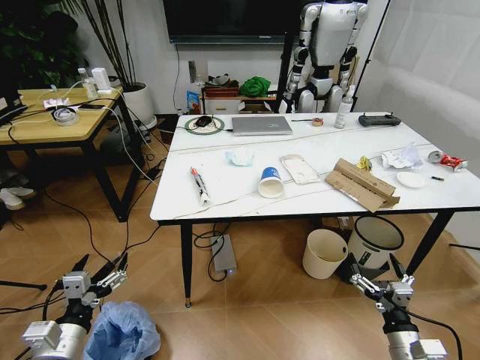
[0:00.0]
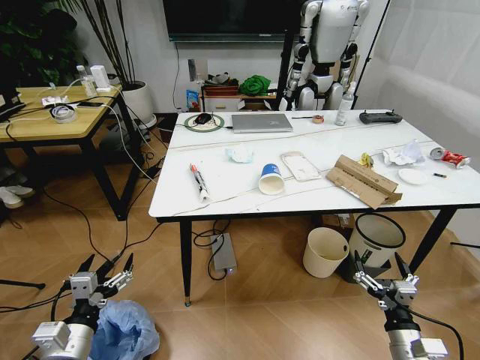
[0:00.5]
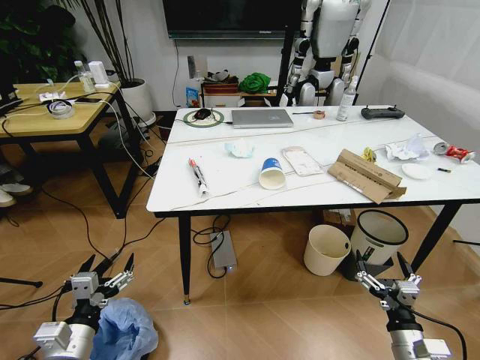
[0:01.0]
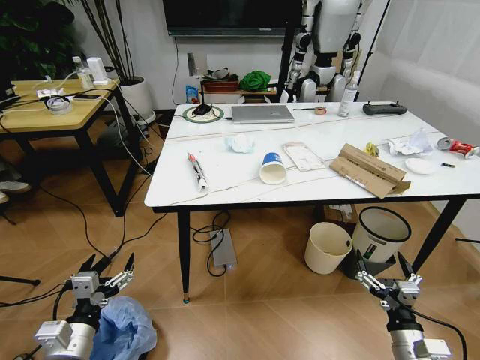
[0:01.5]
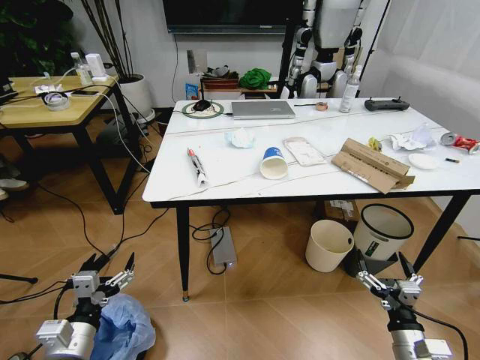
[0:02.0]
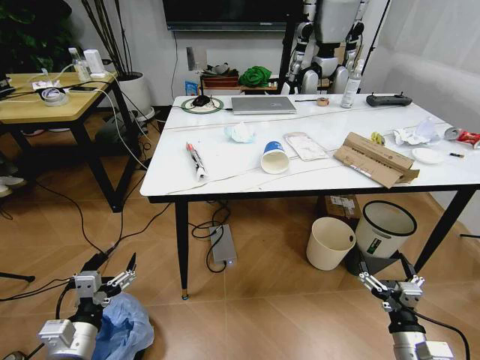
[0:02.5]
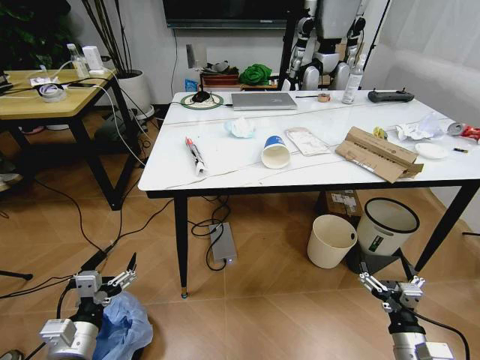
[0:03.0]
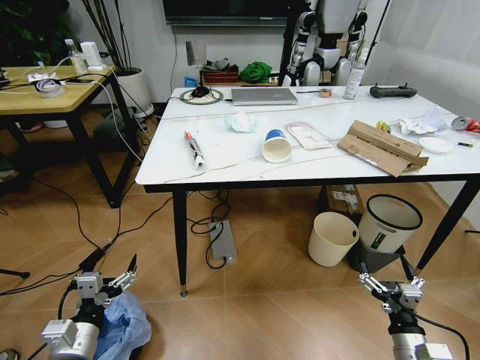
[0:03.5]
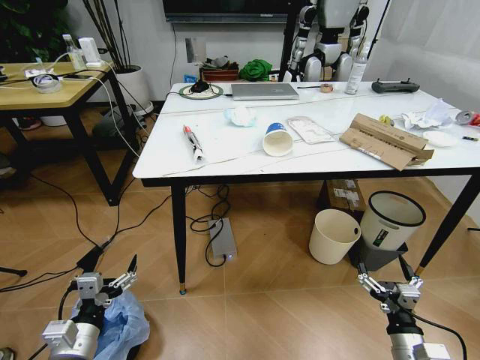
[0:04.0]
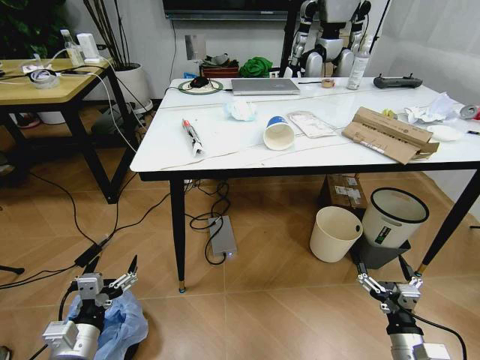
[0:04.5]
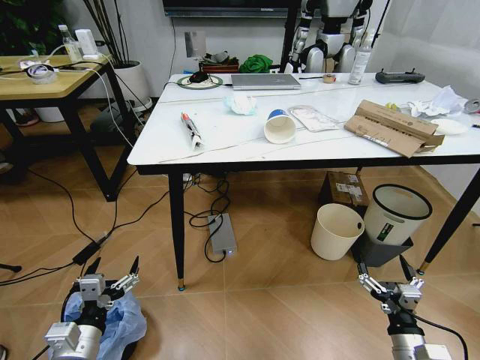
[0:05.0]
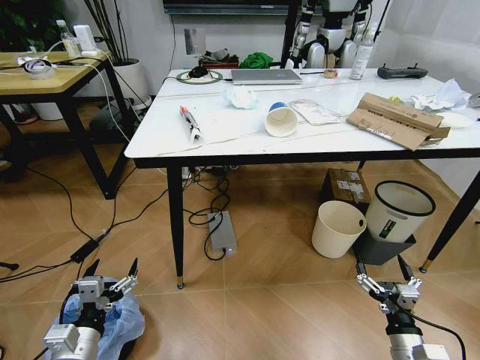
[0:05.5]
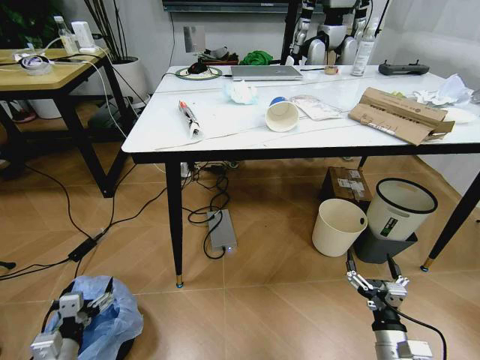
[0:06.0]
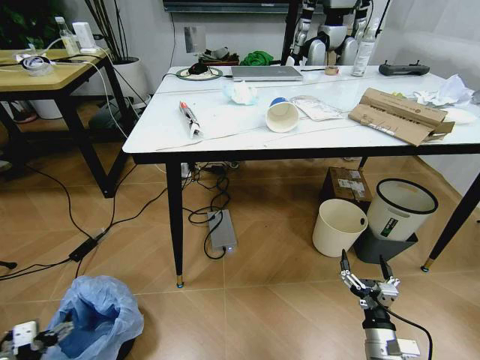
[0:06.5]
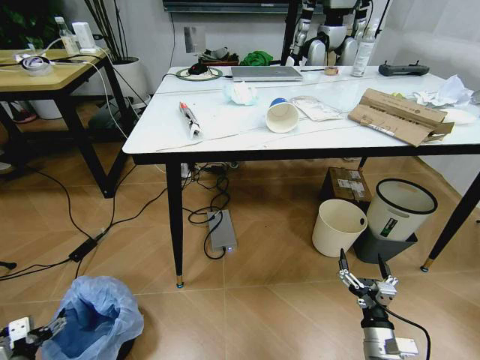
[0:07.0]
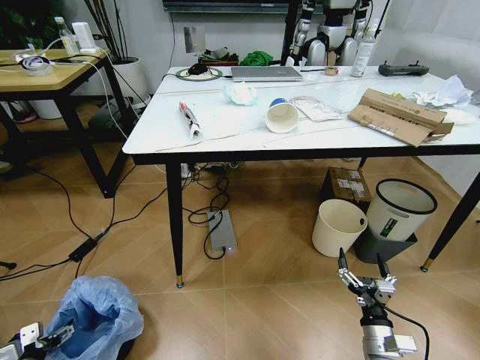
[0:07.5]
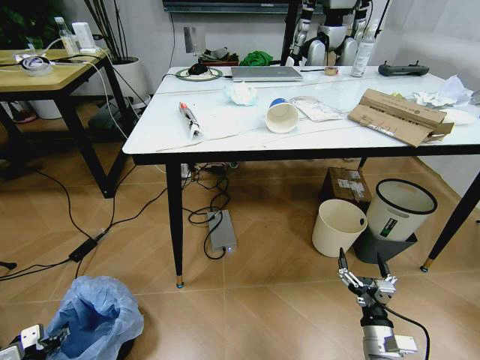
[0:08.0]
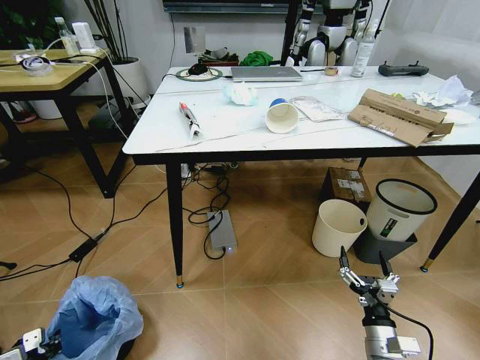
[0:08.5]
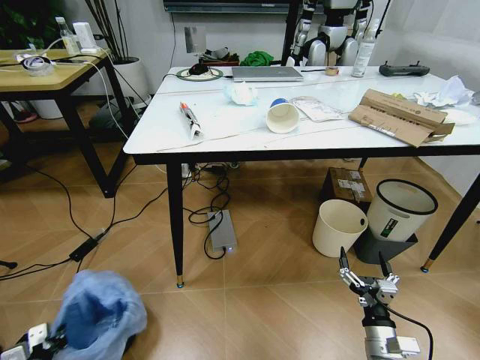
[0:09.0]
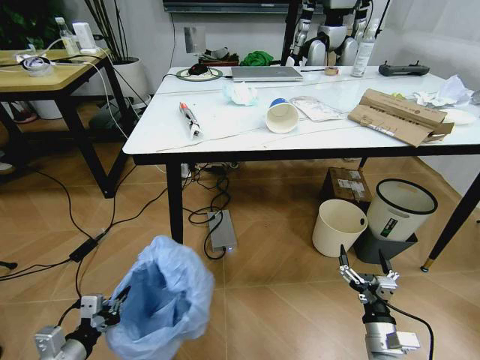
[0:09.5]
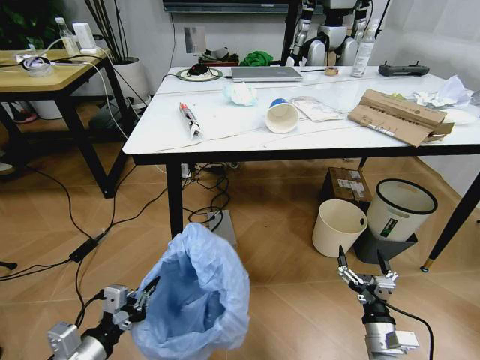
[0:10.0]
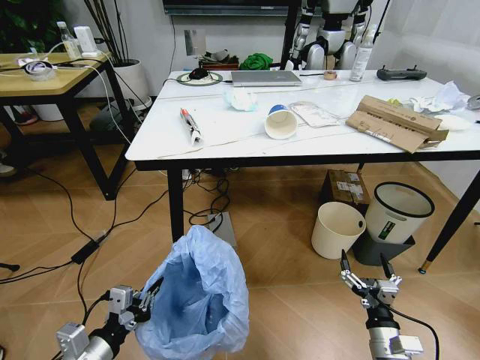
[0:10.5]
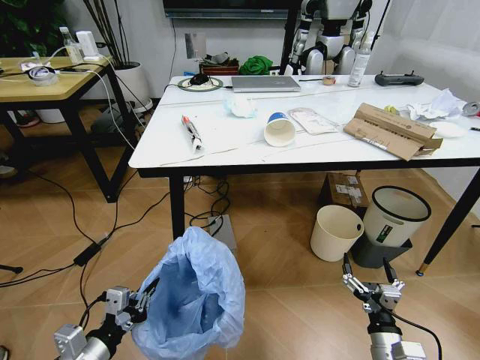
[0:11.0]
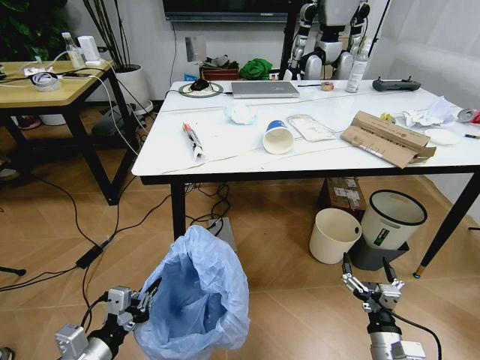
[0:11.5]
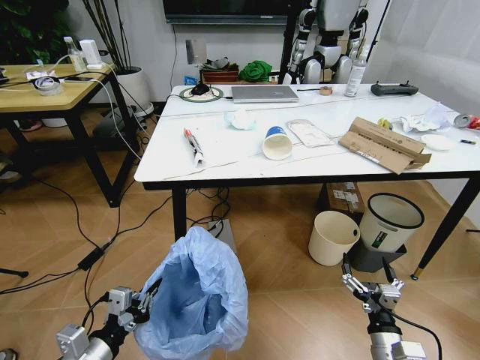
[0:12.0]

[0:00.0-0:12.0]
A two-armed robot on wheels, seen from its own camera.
Task of the whole recording: Pick up the trash bin and place the trash from the table into it.
0:04.0 to 0:06.0: The left gripper heads to the left and downward, covering approximately 5 cm.
0:06.0 to 0:08.0: The left gripper goes about 15 cm to the left and downward.
0:08.0 to 0:10.0: The left gripper is displaced to the right and upward by some 25 cm, and closes its fingers.

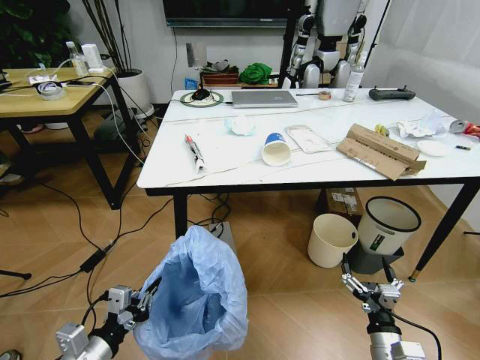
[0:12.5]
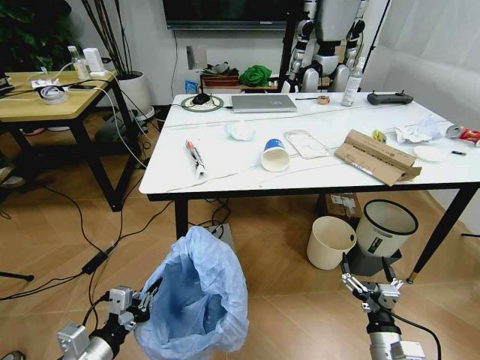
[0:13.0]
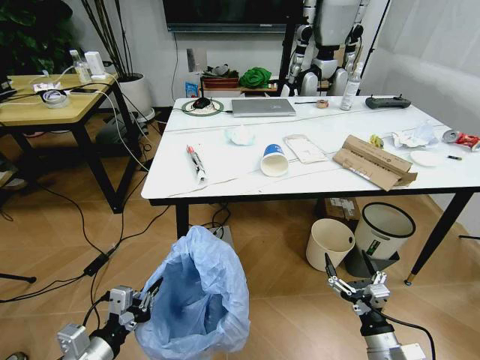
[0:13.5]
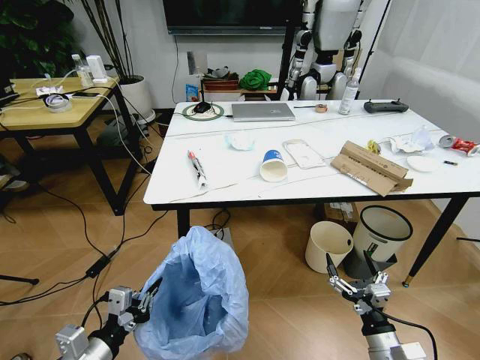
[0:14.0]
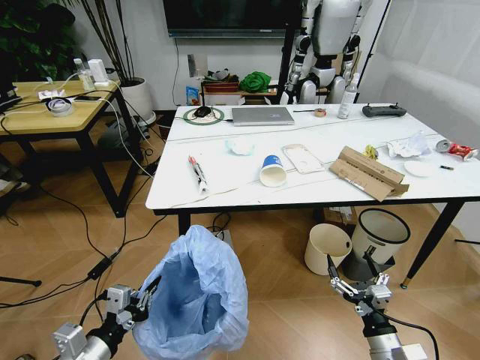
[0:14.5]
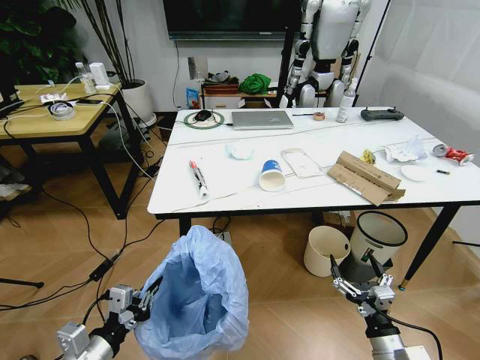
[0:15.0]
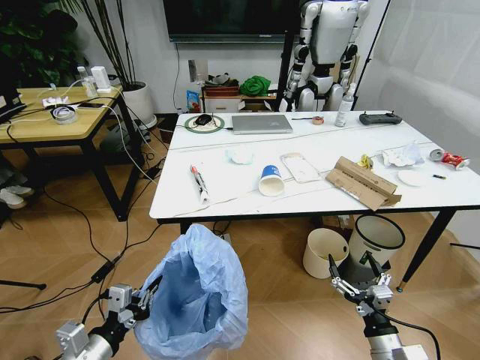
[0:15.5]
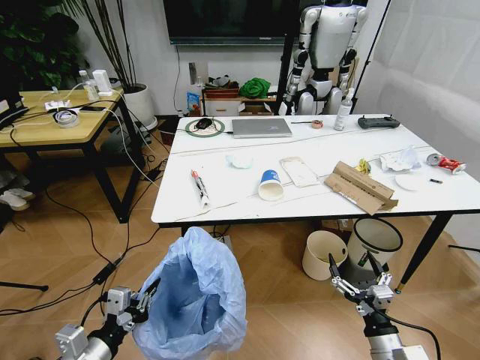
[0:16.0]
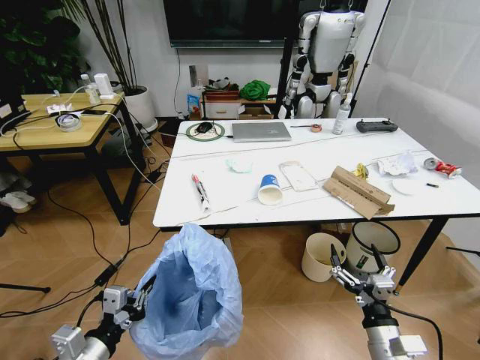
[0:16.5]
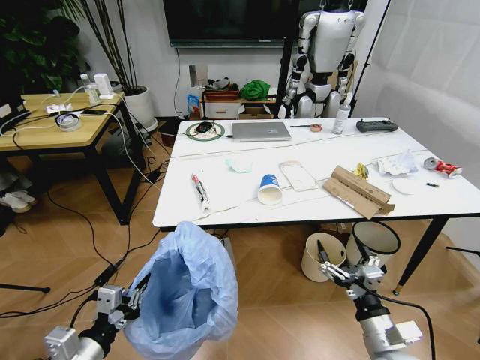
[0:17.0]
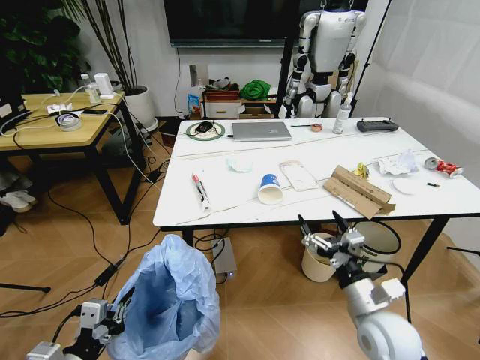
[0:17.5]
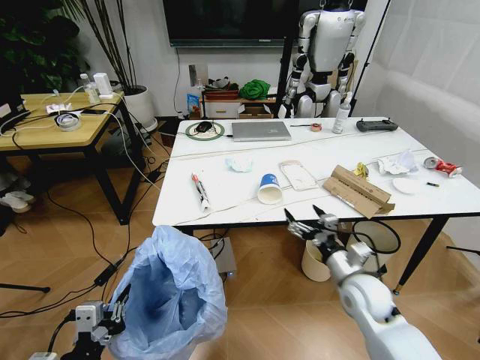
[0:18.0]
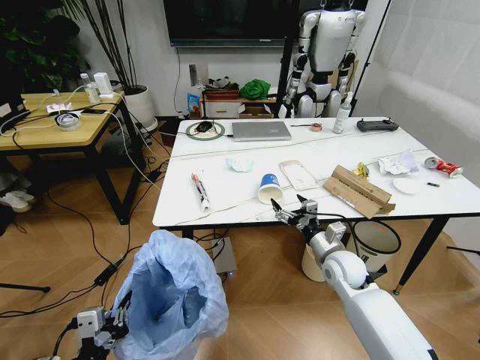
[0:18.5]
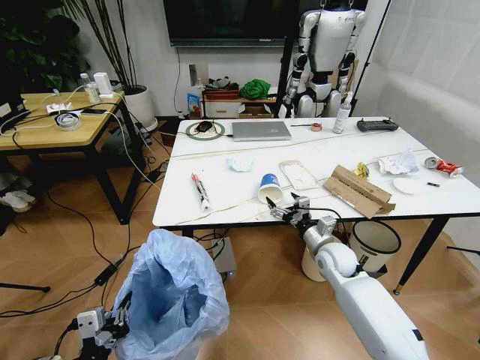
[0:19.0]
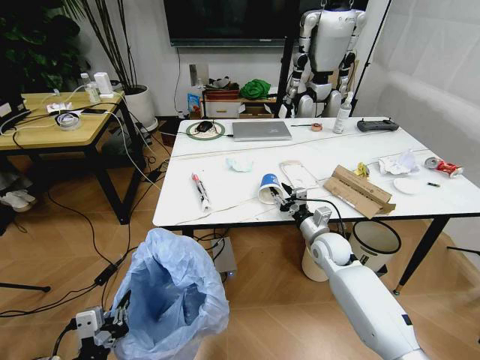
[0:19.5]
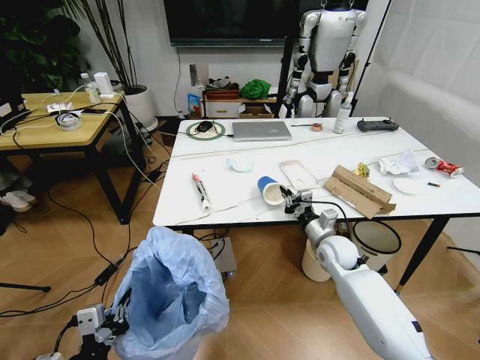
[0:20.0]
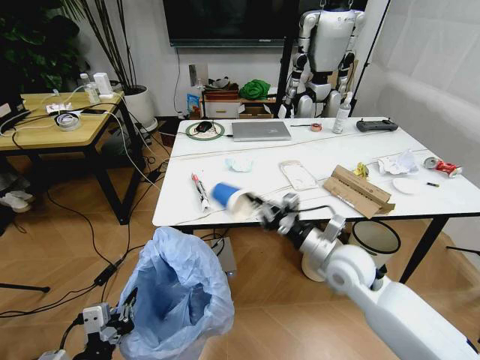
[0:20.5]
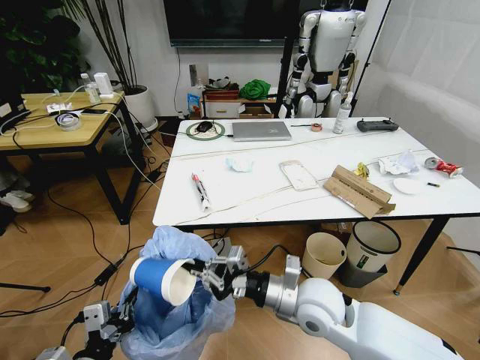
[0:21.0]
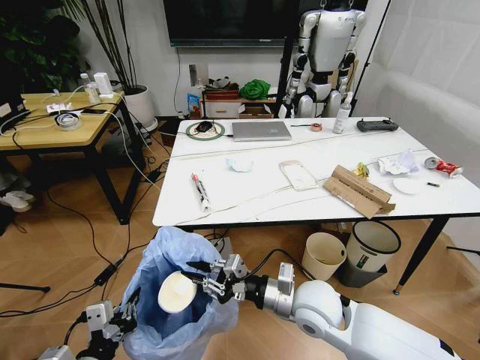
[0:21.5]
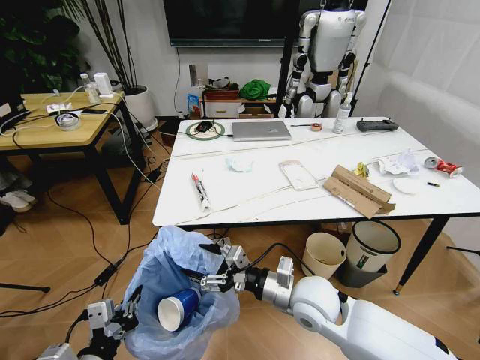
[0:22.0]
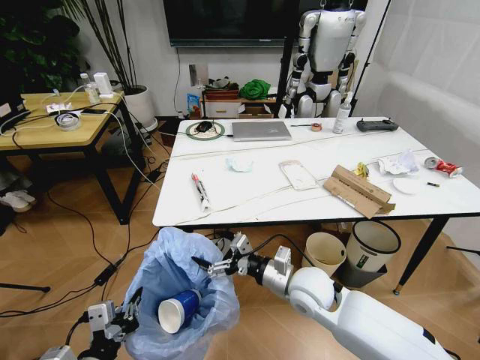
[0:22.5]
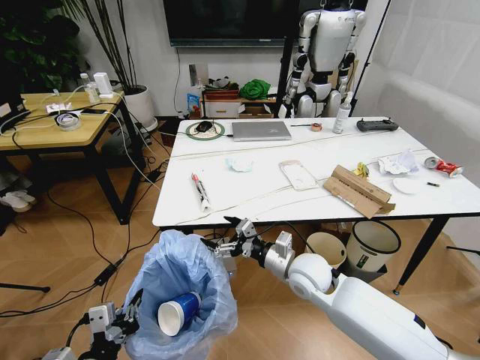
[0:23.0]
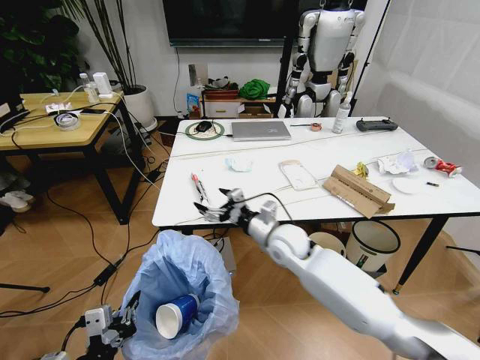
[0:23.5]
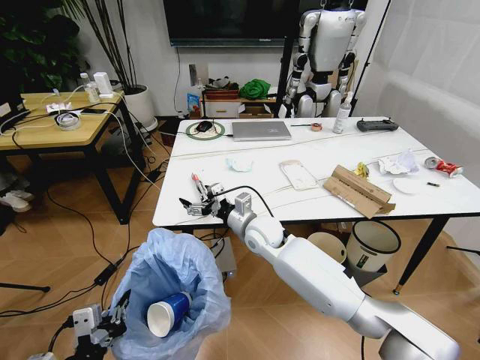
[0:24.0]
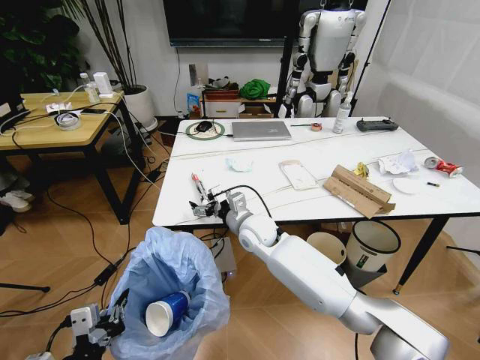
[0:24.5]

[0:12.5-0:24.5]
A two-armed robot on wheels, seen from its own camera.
Task of the whole recording: Pick up the trash bin and place the trash from the table into it.
0:16.5 to 0:18.5: The right gripper heads forward, covering some 25 cm.
0:18.5 to 0:20.5: The right gripper moves upward, approximately 10 cm, and closes up.
0:20.5 to 0:22.5: The right gripper is displaced to the left and downward by roughly 10 cm, and opens its fingers.
0:22.5 to 0:24.5: The right gripper is displaced forward and to the left by roughly 20 cm.

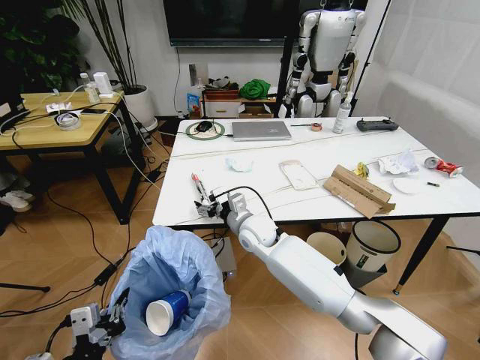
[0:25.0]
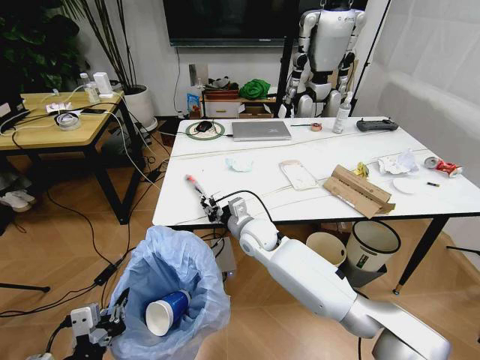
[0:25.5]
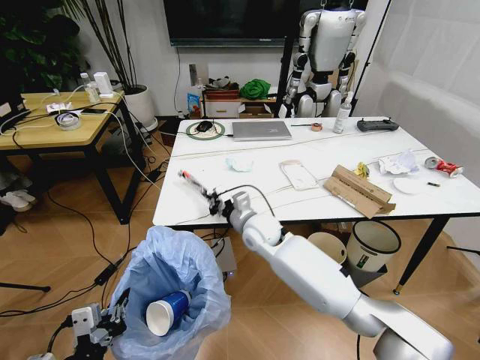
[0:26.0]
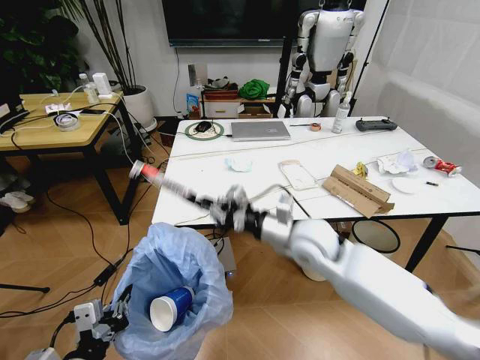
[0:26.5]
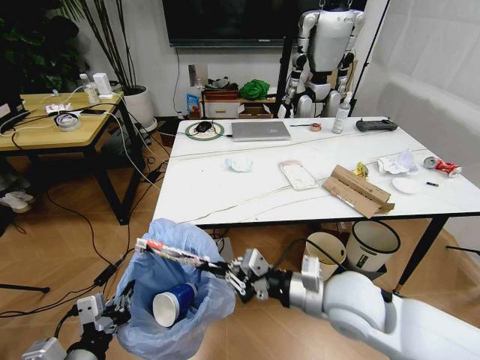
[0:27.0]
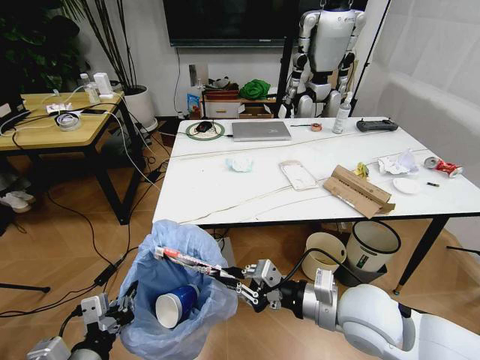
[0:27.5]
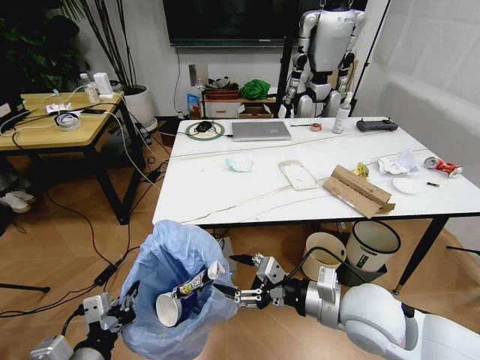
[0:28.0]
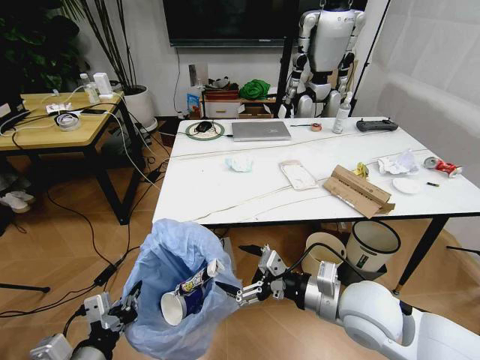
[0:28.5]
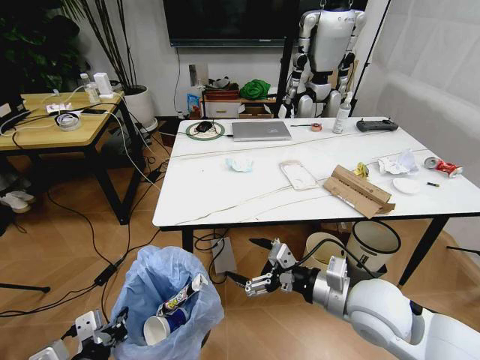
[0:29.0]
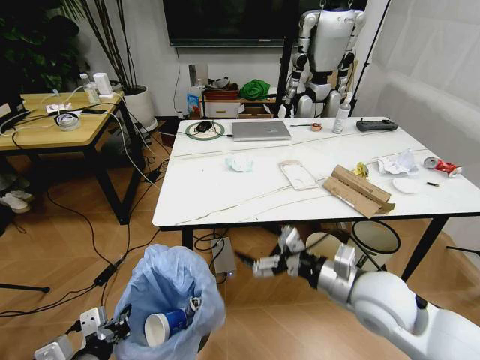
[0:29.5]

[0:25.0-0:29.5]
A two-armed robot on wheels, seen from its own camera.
Task of the whole recording: Pick up the trash bin and place the trash from the table into it.
0:25.0 to 0:27.0: The right gripper moves backward, to the right and upward, approximately 25 cm, and closes.
0:27.0 to 0:29.5: The right gripper is displaced to the right by approximately 5 cm, and opens.
